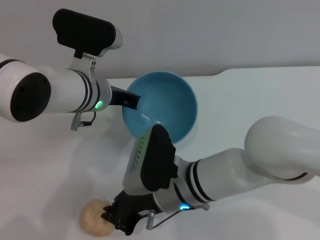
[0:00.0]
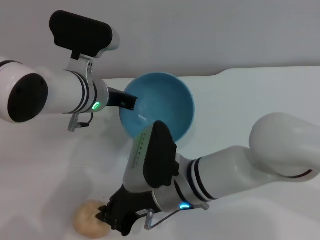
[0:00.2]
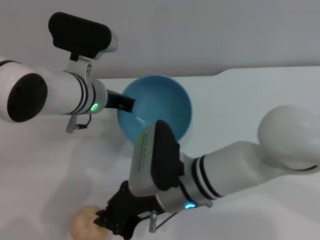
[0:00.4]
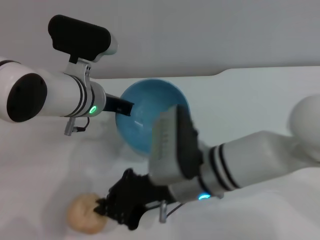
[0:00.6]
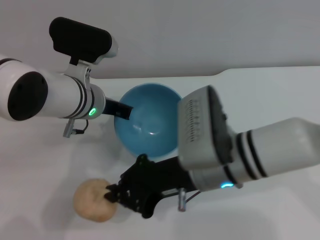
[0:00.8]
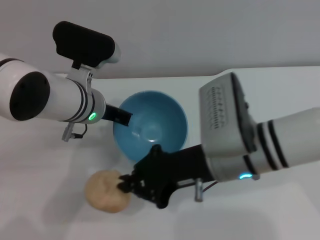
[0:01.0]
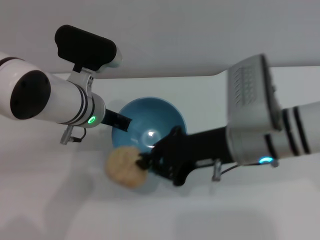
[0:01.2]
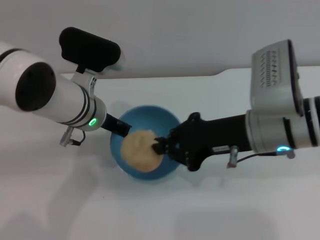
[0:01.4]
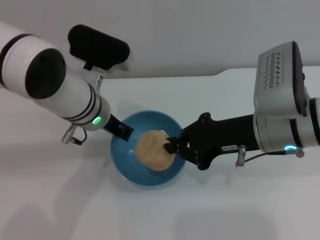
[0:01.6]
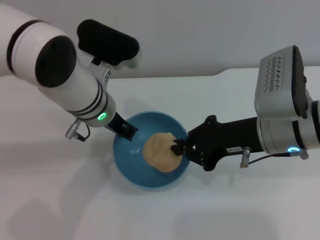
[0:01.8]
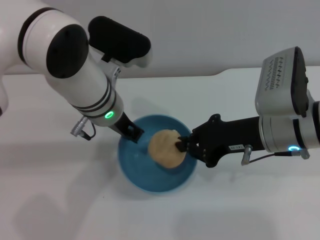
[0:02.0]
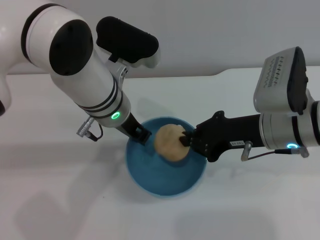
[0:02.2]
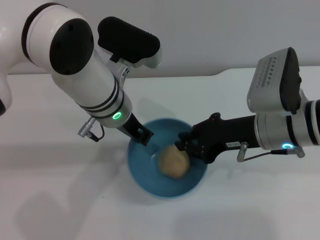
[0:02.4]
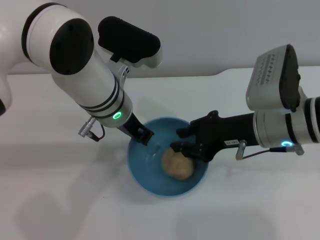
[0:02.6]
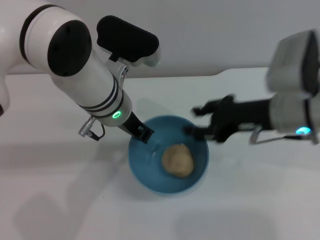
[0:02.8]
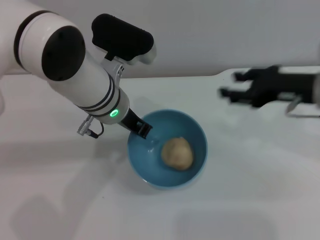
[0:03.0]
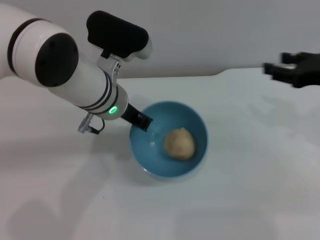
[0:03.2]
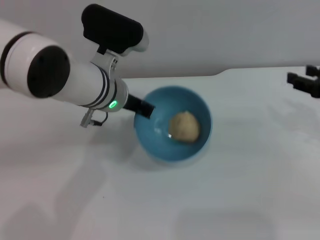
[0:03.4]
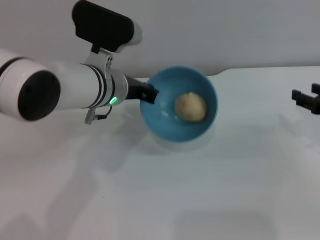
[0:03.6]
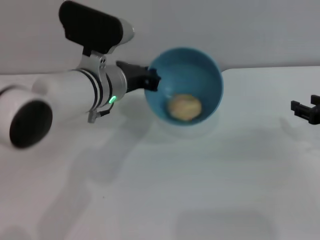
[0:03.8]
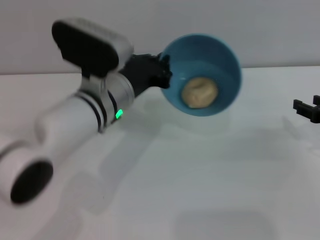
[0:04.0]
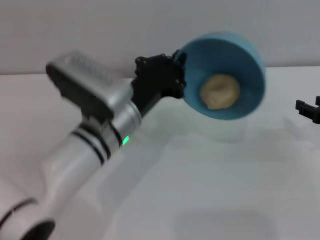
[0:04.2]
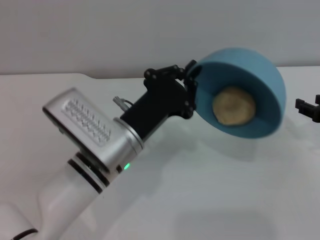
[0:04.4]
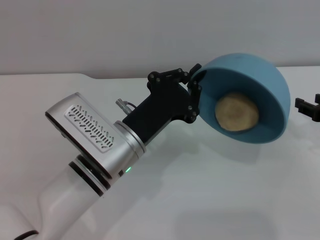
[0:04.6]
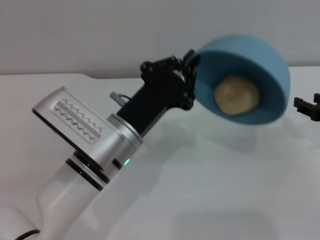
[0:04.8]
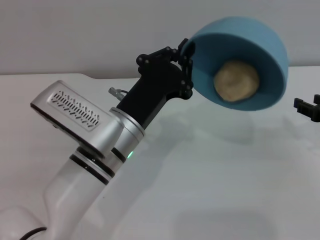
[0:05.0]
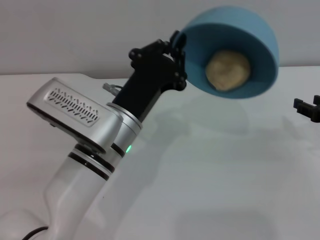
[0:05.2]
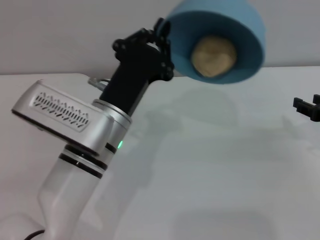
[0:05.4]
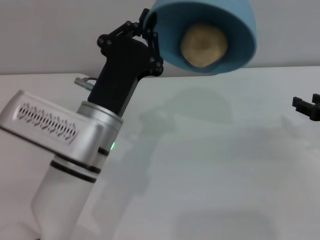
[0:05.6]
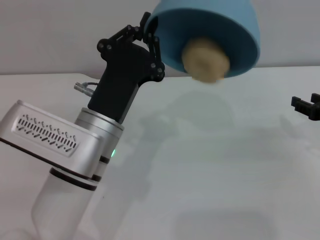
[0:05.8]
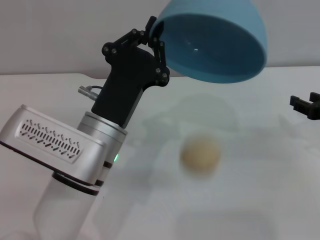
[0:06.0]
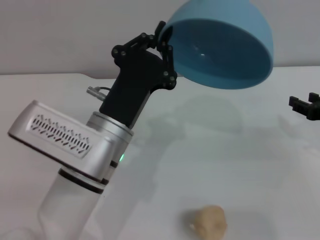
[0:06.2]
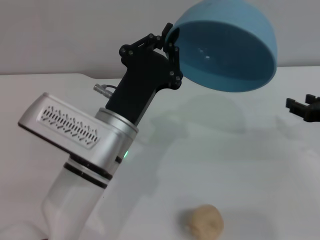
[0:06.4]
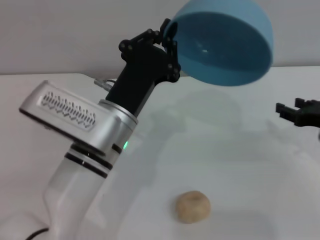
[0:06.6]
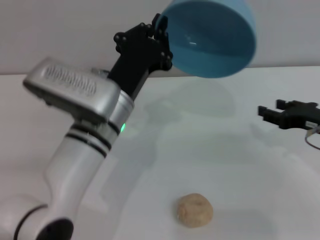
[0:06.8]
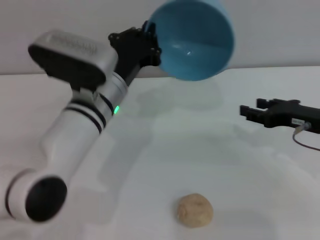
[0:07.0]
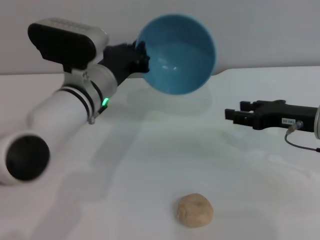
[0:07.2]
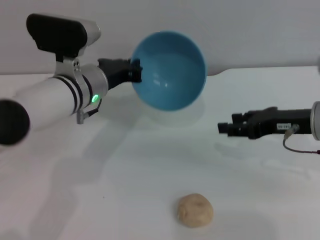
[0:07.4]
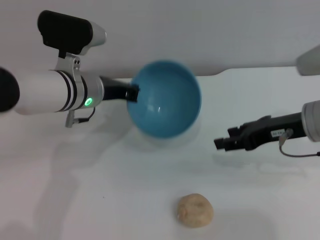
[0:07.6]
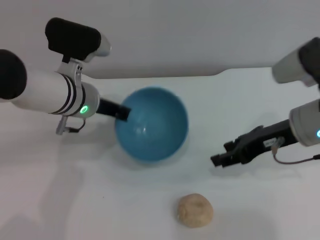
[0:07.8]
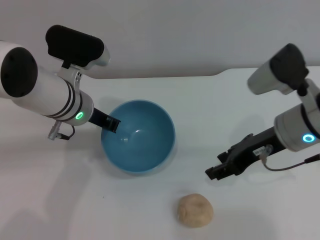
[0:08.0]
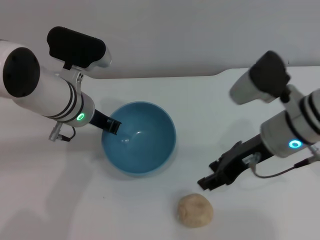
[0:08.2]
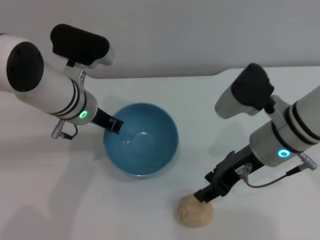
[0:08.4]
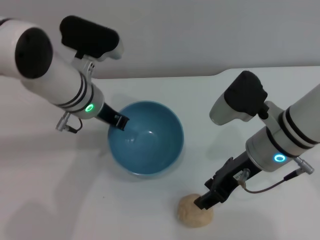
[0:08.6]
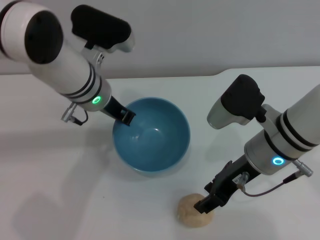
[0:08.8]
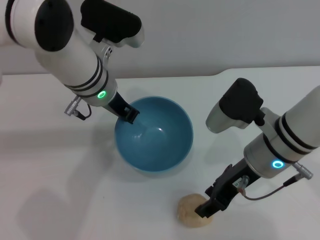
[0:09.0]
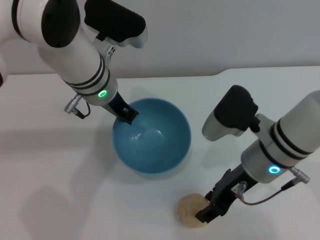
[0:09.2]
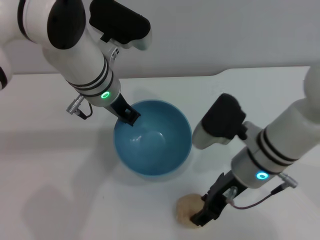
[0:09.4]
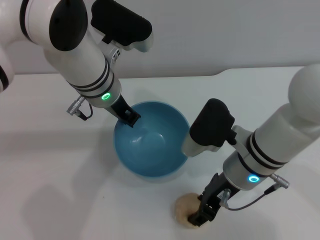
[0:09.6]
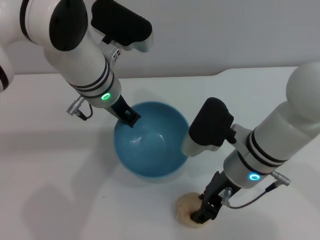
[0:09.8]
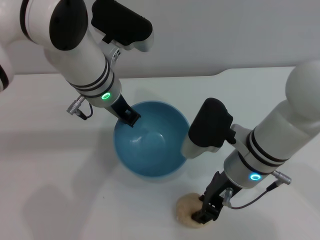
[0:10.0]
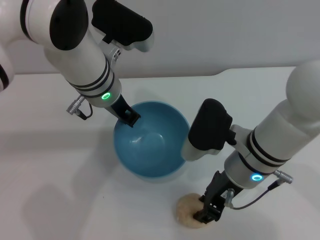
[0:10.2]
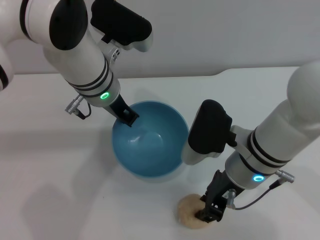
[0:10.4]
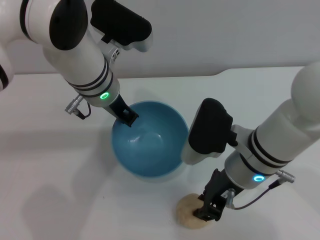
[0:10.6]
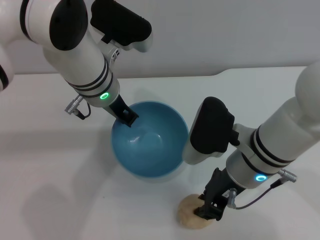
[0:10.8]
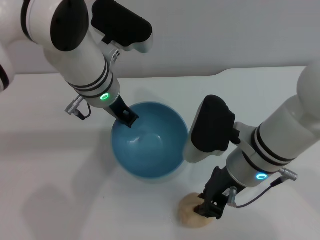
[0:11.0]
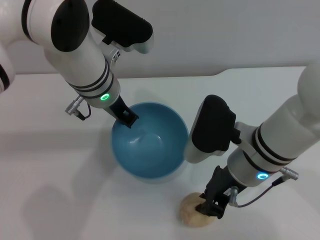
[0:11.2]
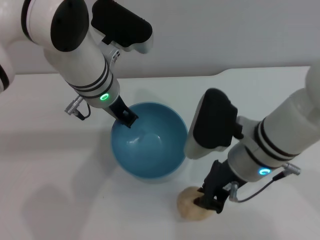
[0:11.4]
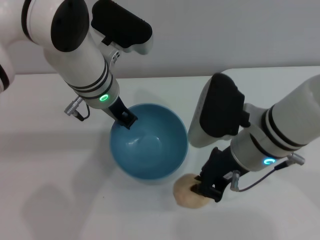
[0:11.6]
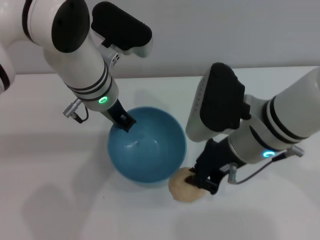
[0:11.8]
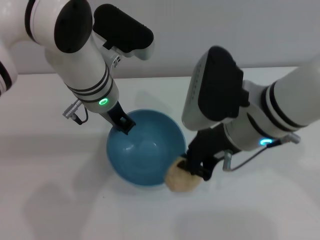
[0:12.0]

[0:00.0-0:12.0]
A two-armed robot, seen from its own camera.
Task of the whole recording: put the egg yolk pastry into the blue bowl and pour it out repeatedly.
Step, 1.0 to 2.6 s: Place the egg yolk pastry into the bowl.
Step, 2.8 to 6.0 s: Pour the egg yolk pastry out of bowl.
Step, 6.2 to 11.8 s: Pick up the egg yolk pastry with the right gripper.
0.0 to 1.6 s: The right gripper is displaced to the right and upward by roughly 15 cm.
1.6 to 3.0 s: The right gripper travels to the right by about 10 cm, and opens its fingers.
3.0 to 4.4 s: The left gripper goes about 10 cm backward and downward; the right gripper goes approximately 15 cm to the right and downward.
6.0 to 7.6 s: The right gripper goes approximately 10 cm to the left and upward; the left gripper heads forward, covering some 15 cm.
7.6 to 9.0 s: The right gripper moves to the left, some 10 cm, while the left gripper changes place by some 5 cm.
10.4 to 12.0 s: The right gripper moves upward, some 10 cm, and closes.

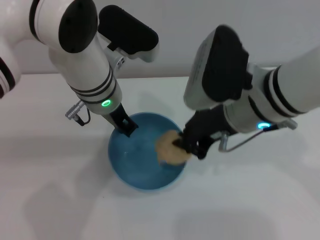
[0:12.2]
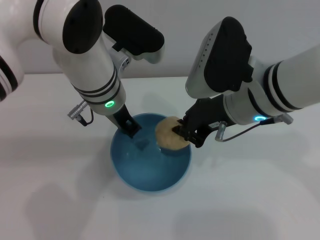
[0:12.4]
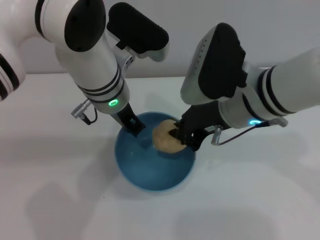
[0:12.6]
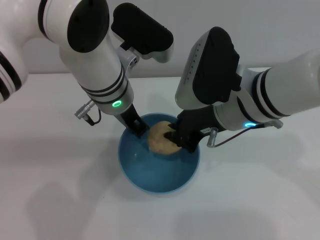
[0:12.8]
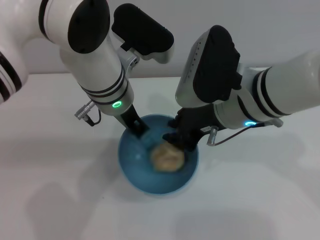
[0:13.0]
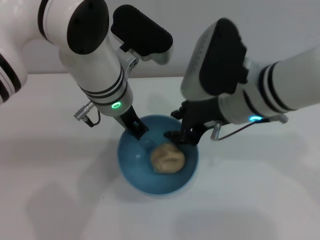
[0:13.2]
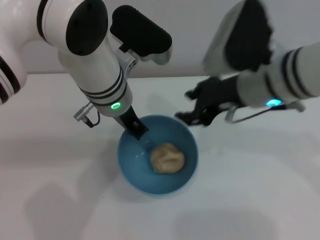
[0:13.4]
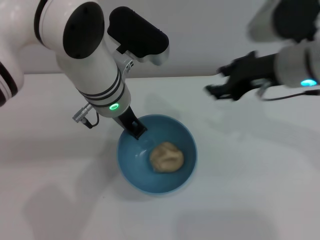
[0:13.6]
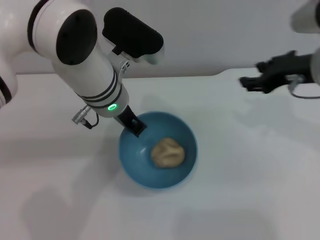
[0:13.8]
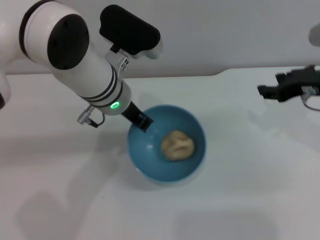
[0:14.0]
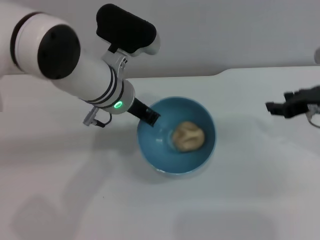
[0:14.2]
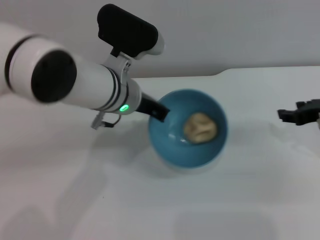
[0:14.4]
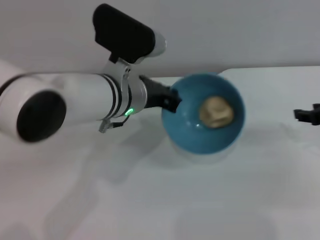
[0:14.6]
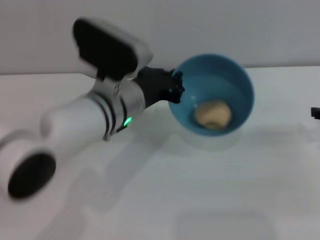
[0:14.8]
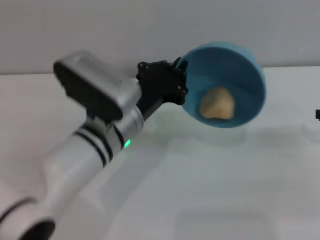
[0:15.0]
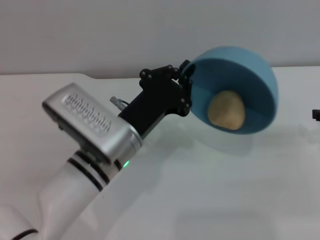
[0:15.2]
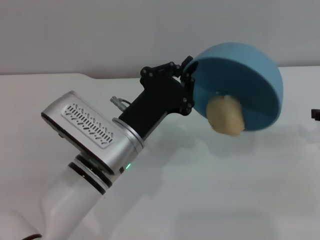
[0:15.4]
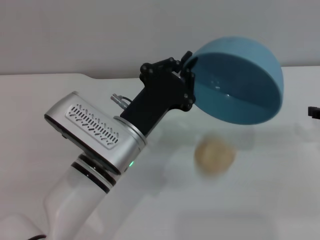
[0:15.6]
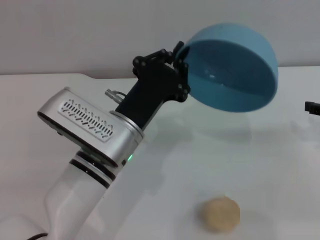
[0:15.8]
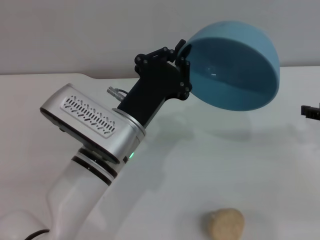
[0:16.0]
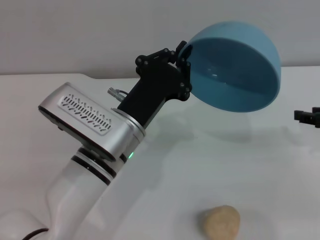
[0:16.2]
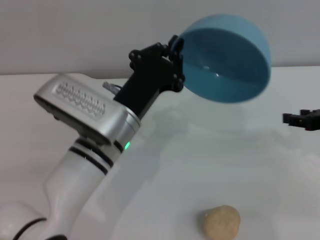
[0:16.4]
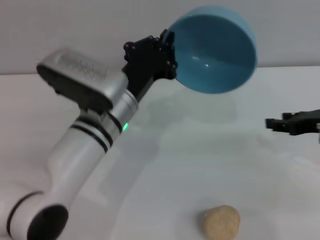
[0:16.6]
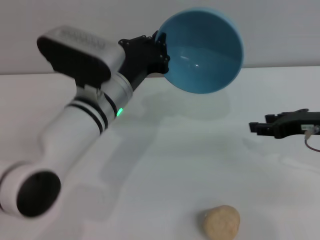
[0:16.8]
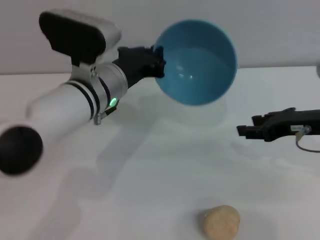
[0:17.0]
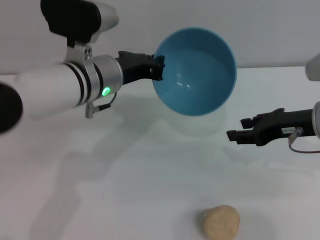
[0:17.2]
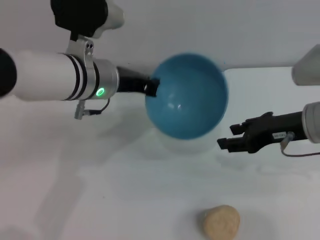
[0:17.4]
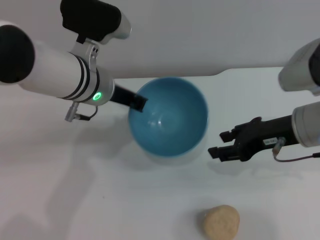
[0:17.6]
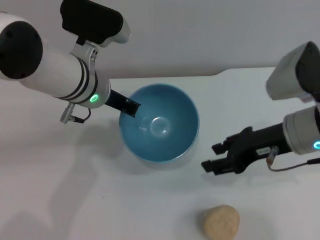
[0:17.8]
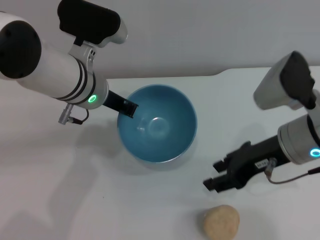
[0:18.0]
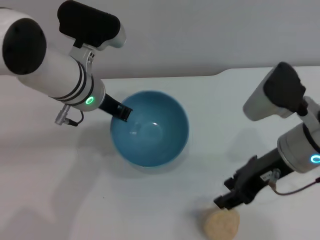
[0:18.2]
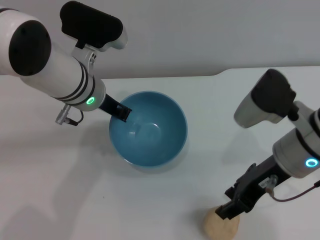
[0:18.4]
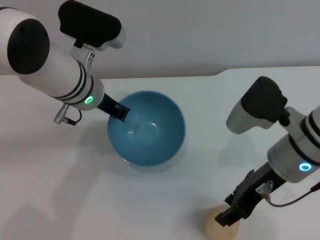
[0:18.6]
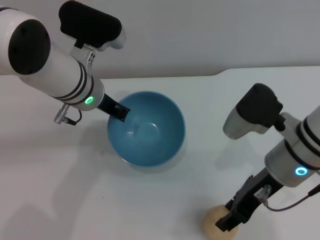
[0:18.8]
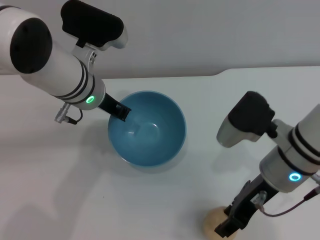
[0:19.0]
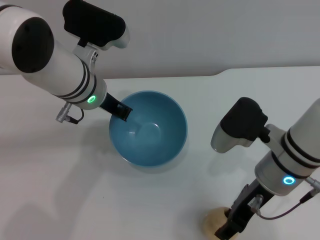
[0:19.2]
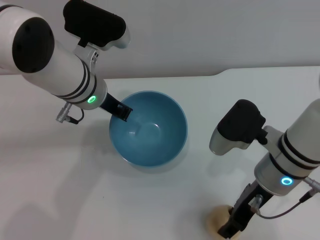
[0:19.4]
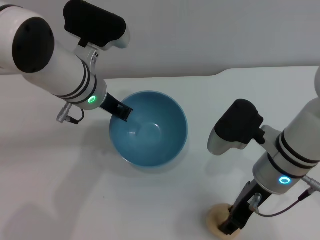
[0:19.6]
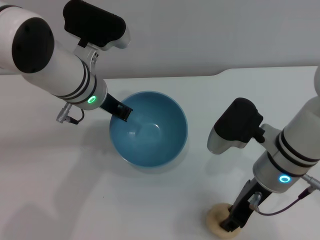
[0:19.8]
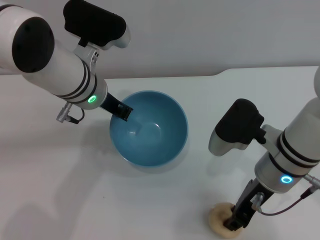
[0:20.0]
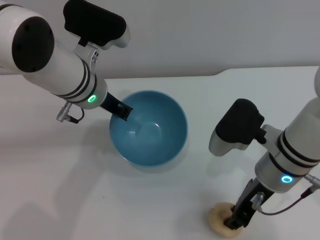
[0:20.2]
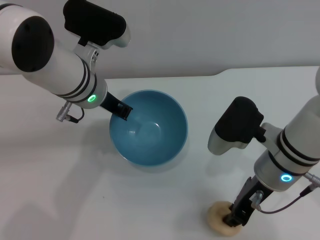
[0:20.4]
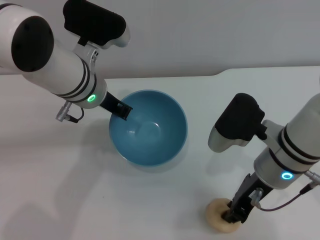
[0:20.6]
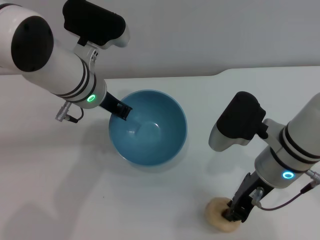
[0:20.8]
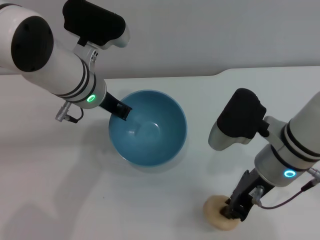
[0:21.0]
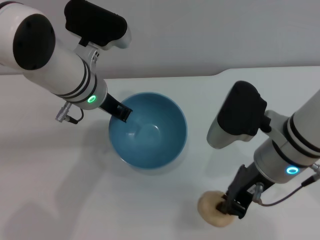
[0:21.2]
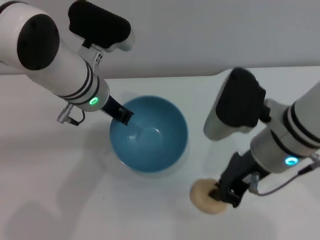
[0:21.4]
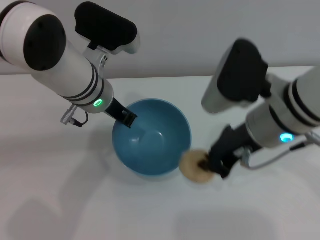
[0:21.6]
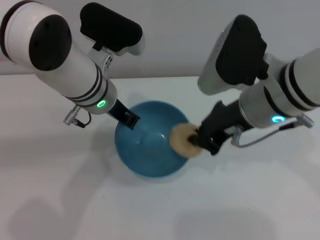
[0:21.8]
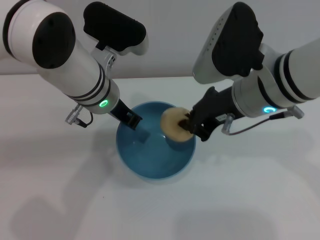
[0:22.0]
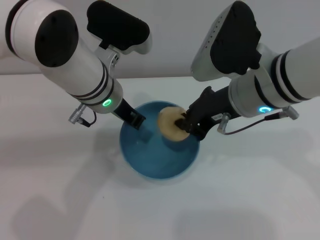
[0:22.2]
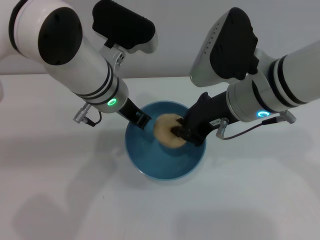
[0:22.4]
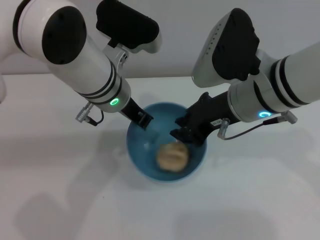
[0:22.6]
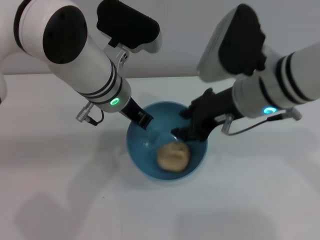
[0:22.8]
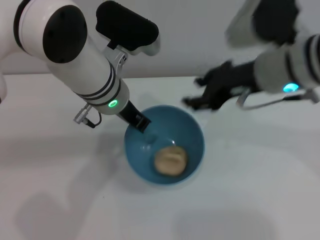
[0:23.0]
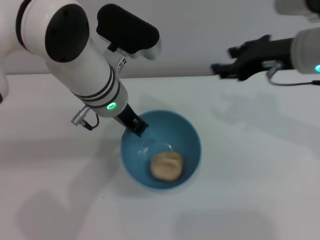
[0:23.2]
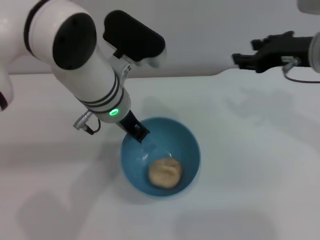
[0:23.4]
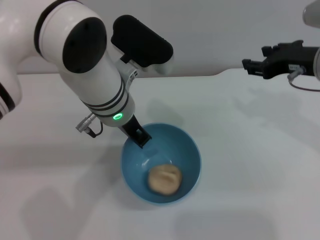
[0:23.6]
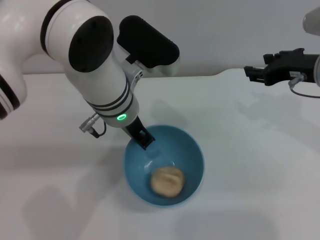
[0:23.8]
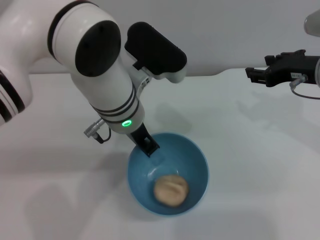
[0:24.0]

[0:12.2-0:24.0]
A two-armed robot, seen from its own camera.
Task of the whole recording: put the egg yolk pastry into the blue bowl and pour it out repeatedly.
Step, 12.2 to 13.2 s: Place the egg yolk pastry into the bowl.
Step, 13.4 to 15.8 s: Pour the egg yolk pastry out of bowl.
Step, 16.0 to 21.6 s: Pick up the egg yolk pastry with the right gripper.
Step, 21.8 to 22.8 s: Place the egg yolk pastry into the bowl.
12.2 to 13.6 s: The right gripper moves to the right, some 5 cm, and opens up.
13.6 to 15.2 s: The right gripper goes approximately 20 cm to the right and downward. Meanwhile the left gripper moves backward and downward, approximately 10 cm.
16.6 to 18.2 s: The right gripper is displaced to the left by some 10 cm. Meanwhile the left gripper is displaced forward by approximately 5 cm.
18.2 to 19.6 s: The right gripper ends up approximately 5 cm from where it was.
19.6 to 21.0 s: The right gripper closes.
21.0 to 22.6 s: The right gripper goes about 5 cm upward.
22.6 to 24.0 s: The right gripper shifts some 15 cm to the right, and opens its fingers.
